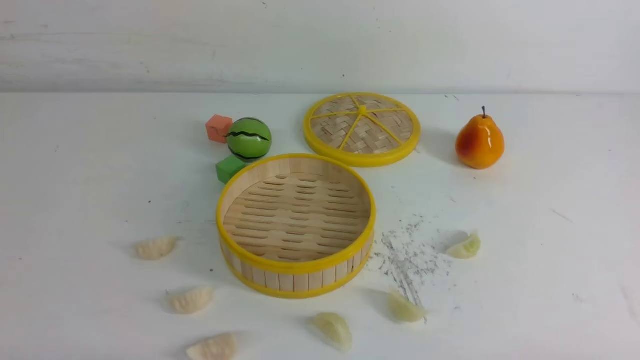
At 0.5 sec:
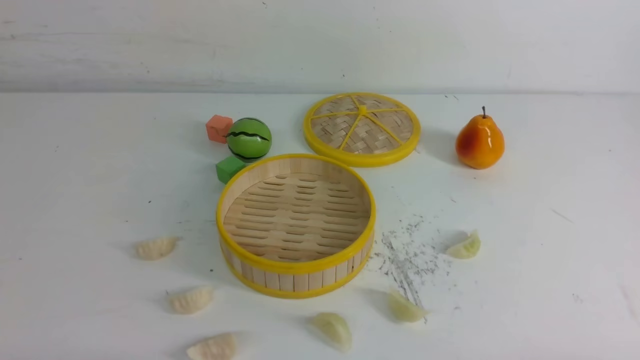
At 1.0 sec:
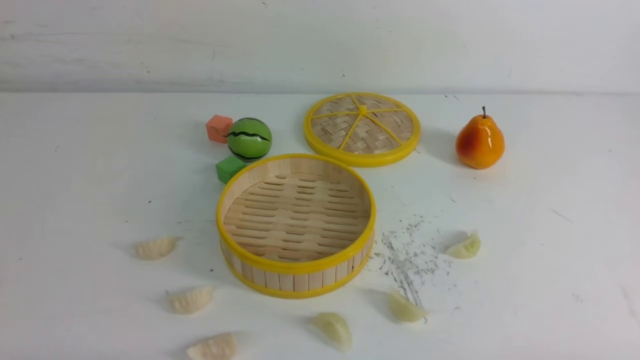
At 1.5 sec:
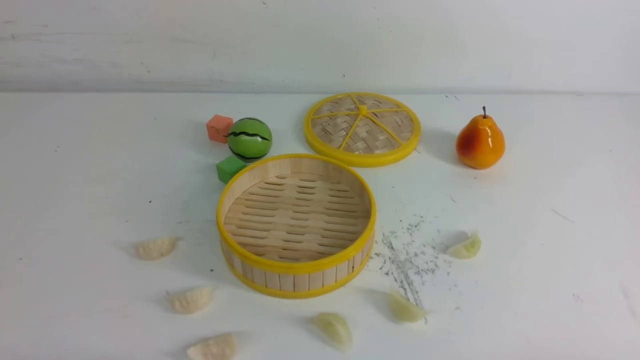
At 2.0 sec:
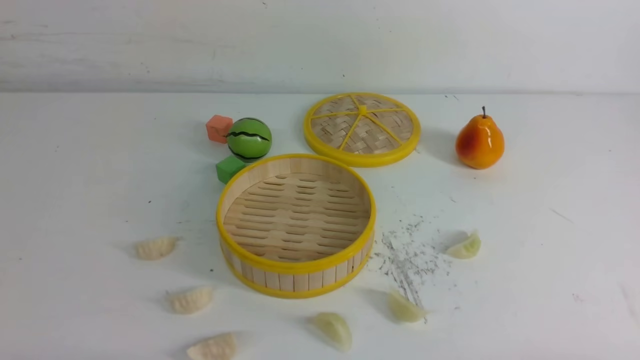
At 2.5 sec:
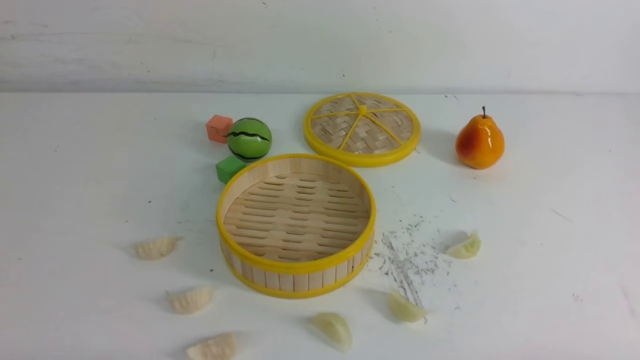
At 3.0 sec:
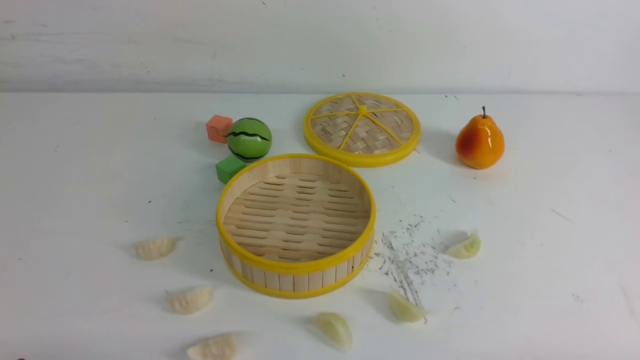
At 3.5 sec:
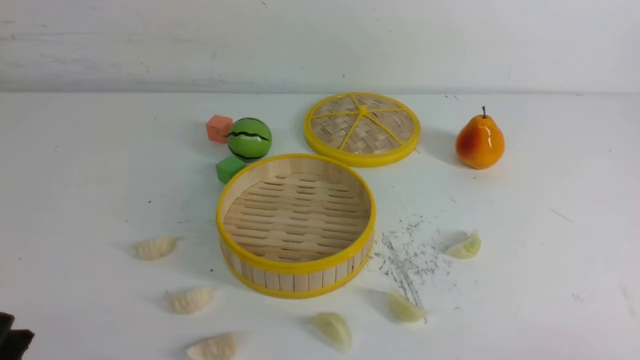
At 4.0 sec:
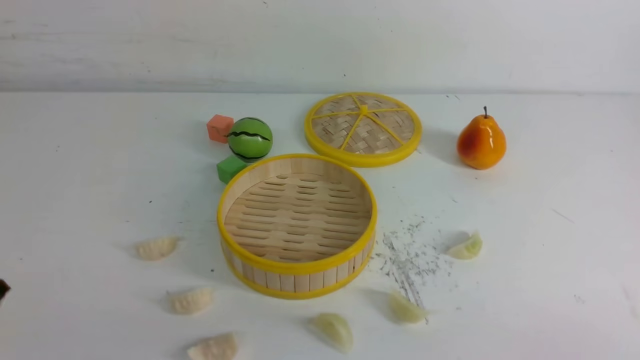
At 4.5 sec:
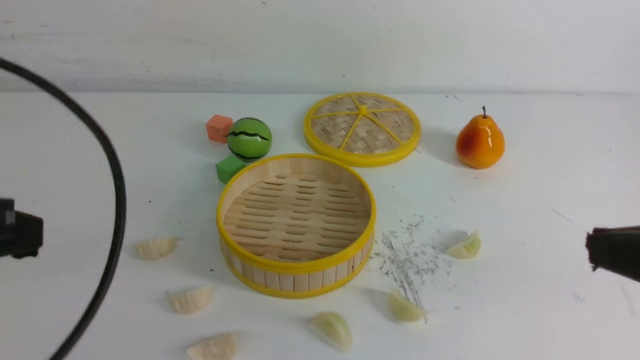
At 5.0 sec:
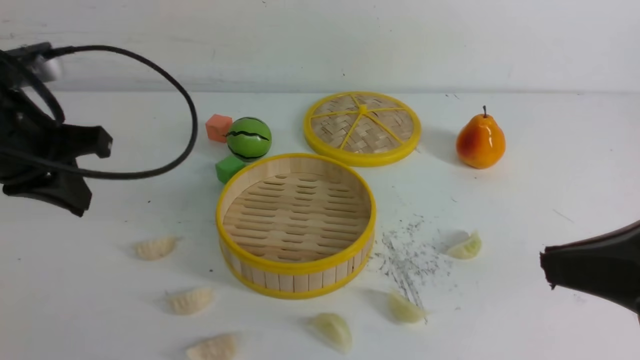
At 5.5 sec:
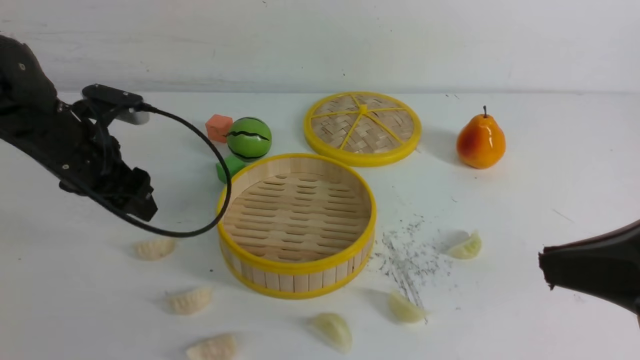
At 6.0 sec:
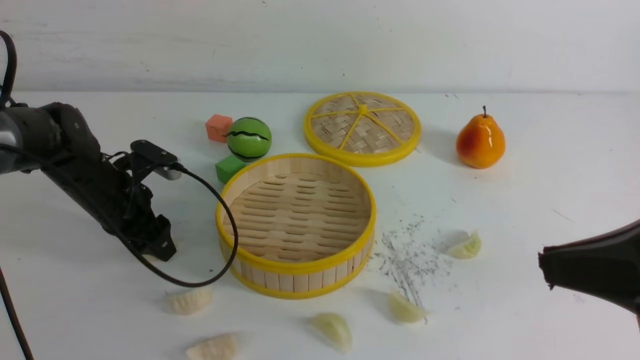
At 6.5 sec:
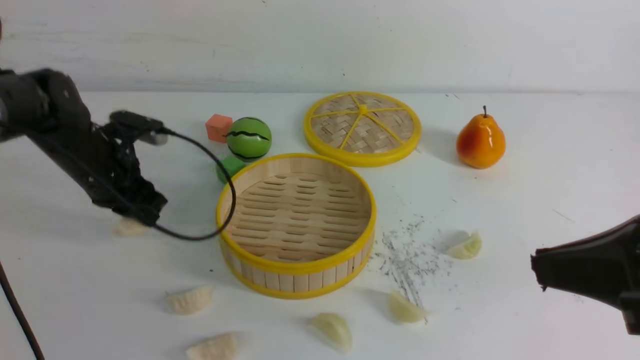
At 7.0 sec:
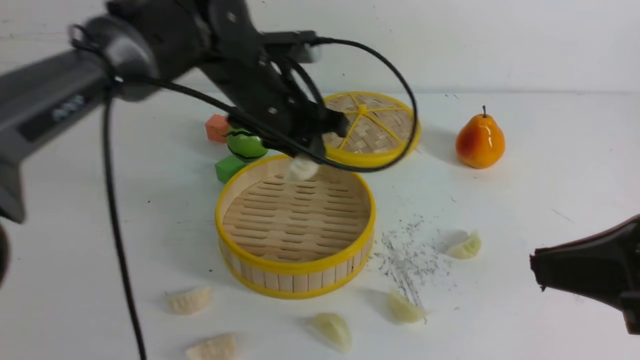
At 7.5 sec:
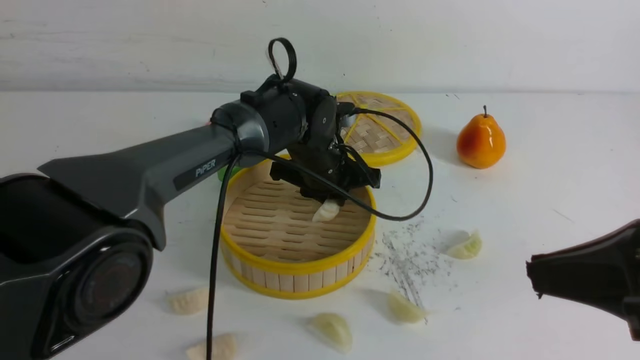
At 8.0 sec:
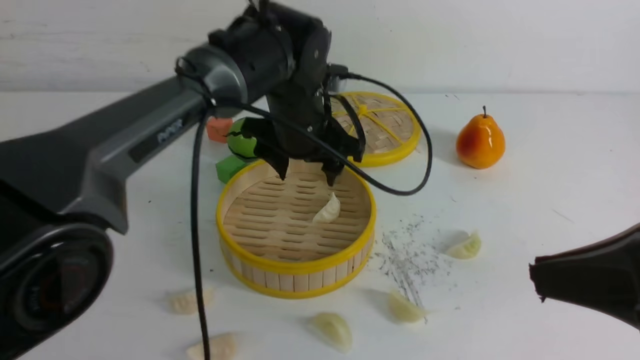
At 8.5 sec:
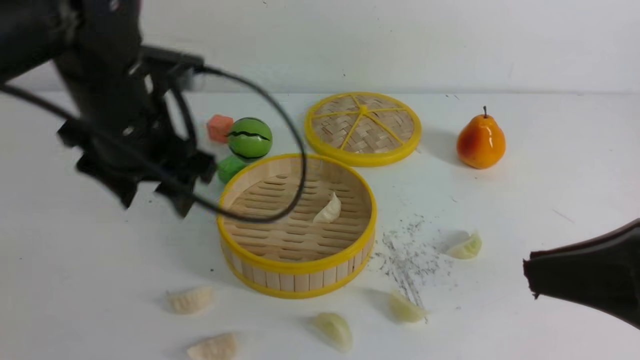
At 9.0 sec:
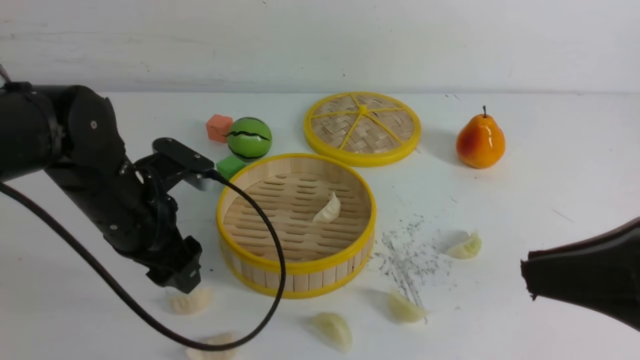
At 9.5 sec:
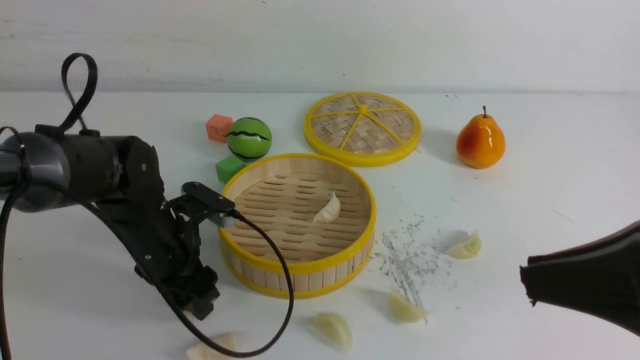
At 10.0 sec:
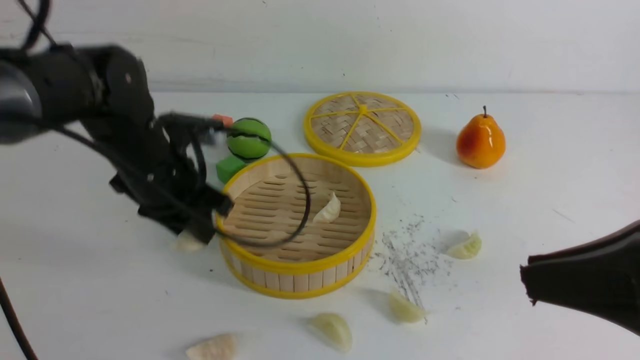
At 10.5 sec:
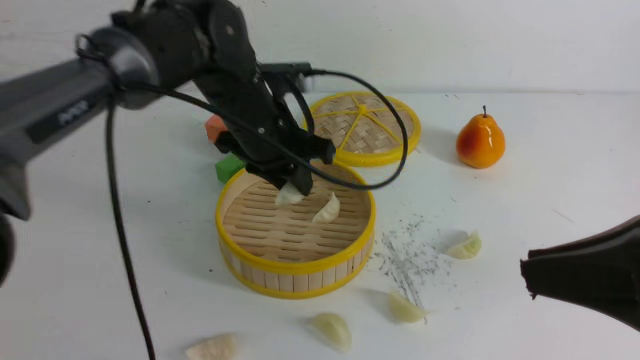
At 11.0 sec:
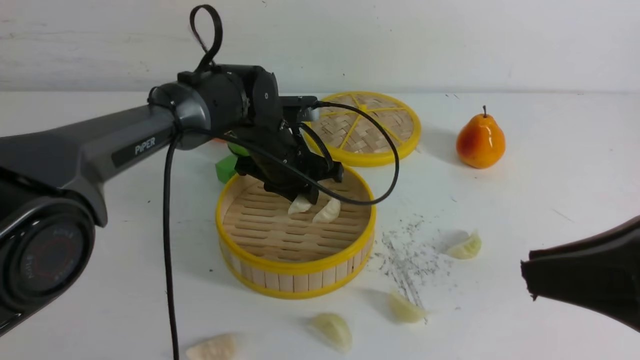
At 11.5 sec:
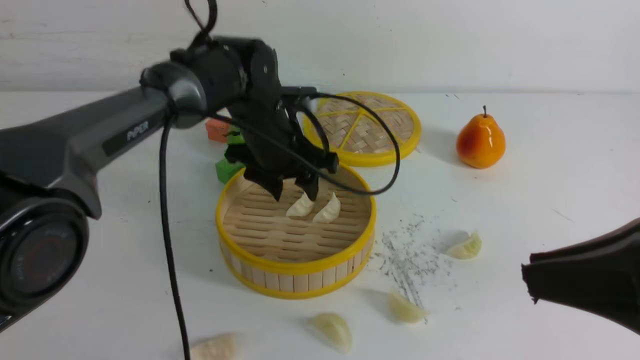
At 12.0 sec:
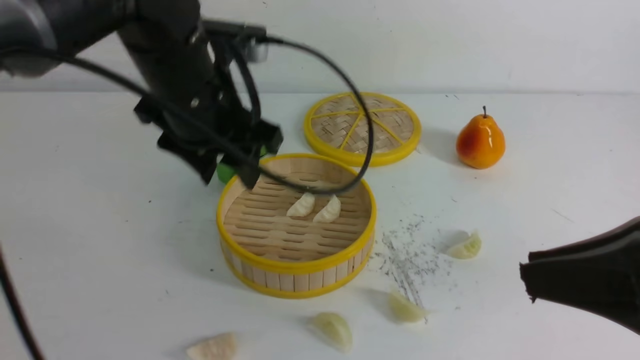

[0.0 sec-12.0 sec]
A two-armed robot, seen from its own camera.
Task of the whole recording: put the dumplings into the steamer on the white table.
Step, 0.0 sec to 6.0 sec: use the left arm to grab a dumpling.
Step, 6.5 sec to 7.5 sec: use the left arm to put the dumpling into the steamer.
Step, 8.0 sec to 9.5 sec: use the left arm to grab a dumpling.
Step, 10.0 sec to 11.0 sec: use the left arm to put the dumpling into the steamer.
0.0 sec to 2.0 sec: Both grippers stay about where they are.
4.0 sec to 6.0 sec: The left gripper heads forward, covering approximately 35 cm, and opens up; the right gripper travels upward, forward and to the left by about 15 cm.
6.0 sec to 8.0 sec: The left gripper is displaced to the right and upward by about 25 cm, and closes, then reopens.
8.0 sec to 10.0 sec: The left gripper shifts approximately 15 cm to the left, and closes.
10.0 sec to 12.0 sec: The left gripper travels upward by about 5 cm, and opens.

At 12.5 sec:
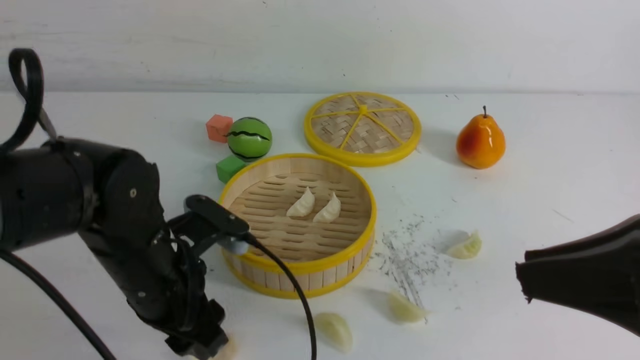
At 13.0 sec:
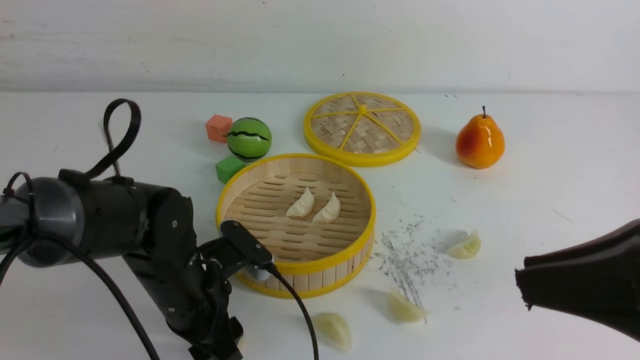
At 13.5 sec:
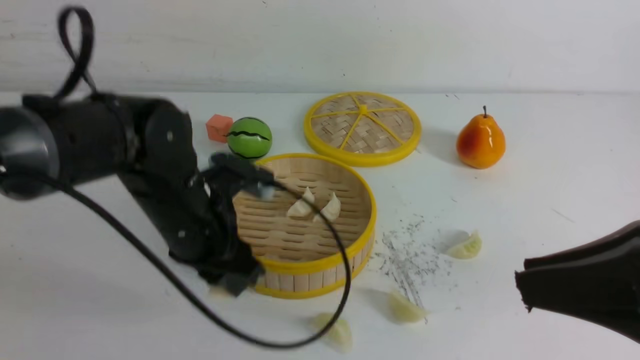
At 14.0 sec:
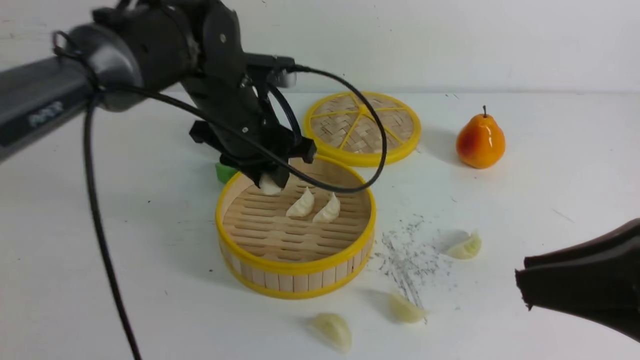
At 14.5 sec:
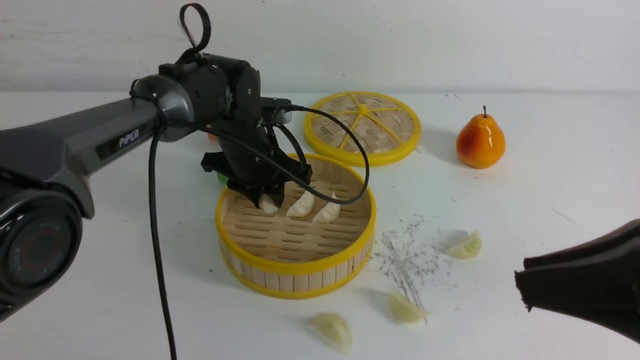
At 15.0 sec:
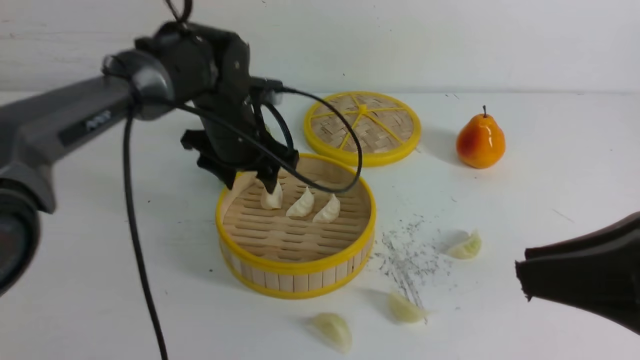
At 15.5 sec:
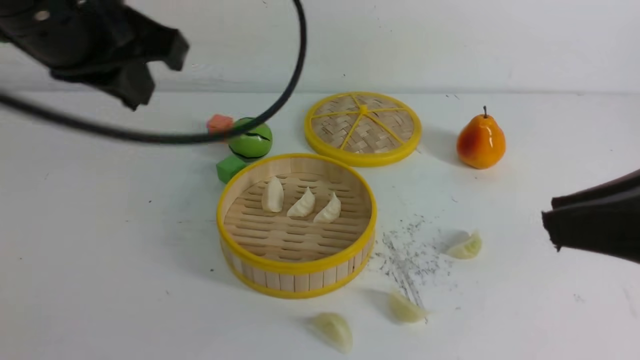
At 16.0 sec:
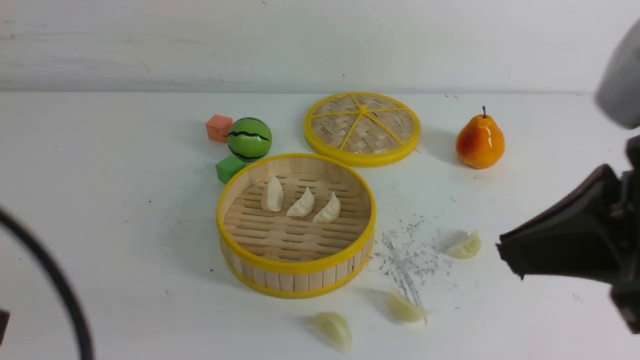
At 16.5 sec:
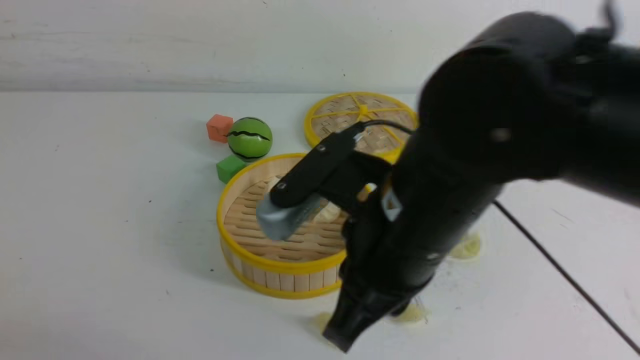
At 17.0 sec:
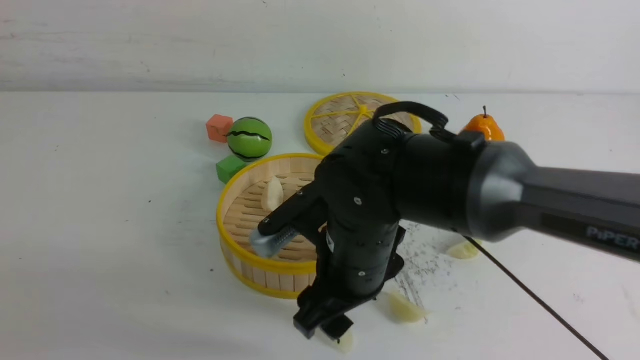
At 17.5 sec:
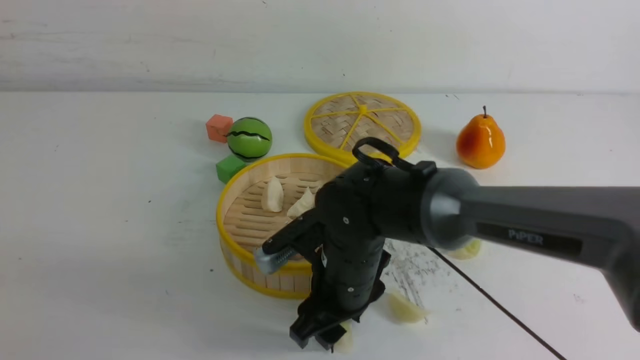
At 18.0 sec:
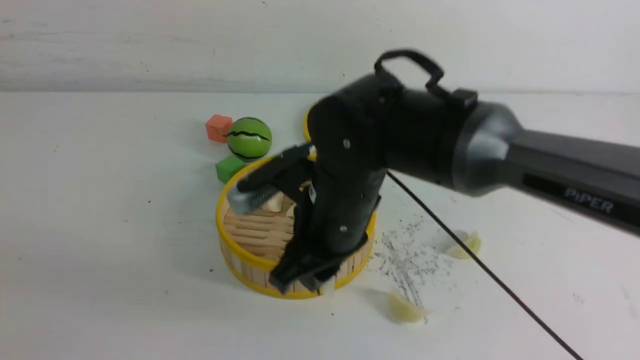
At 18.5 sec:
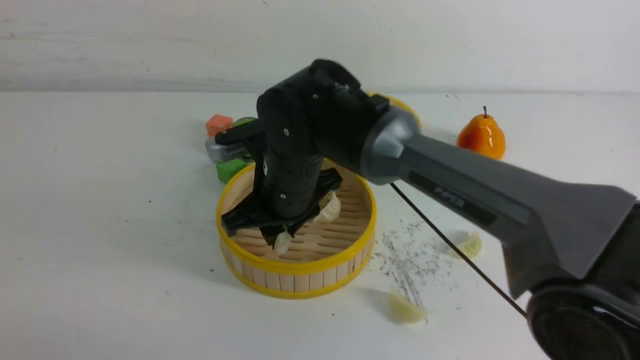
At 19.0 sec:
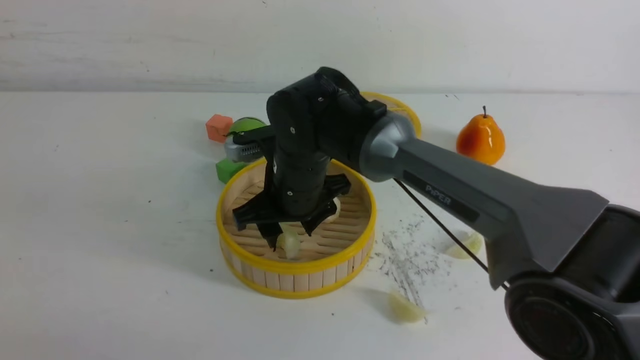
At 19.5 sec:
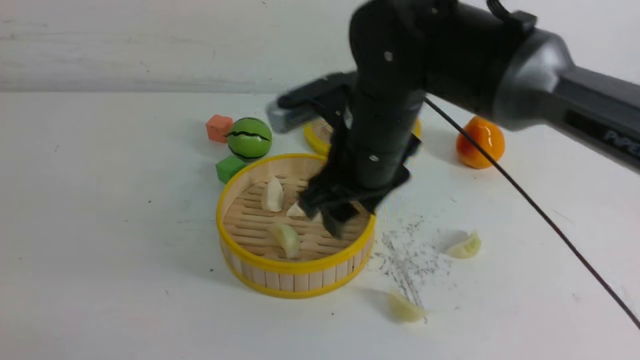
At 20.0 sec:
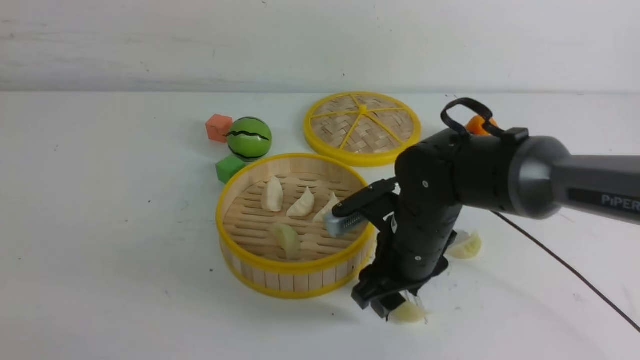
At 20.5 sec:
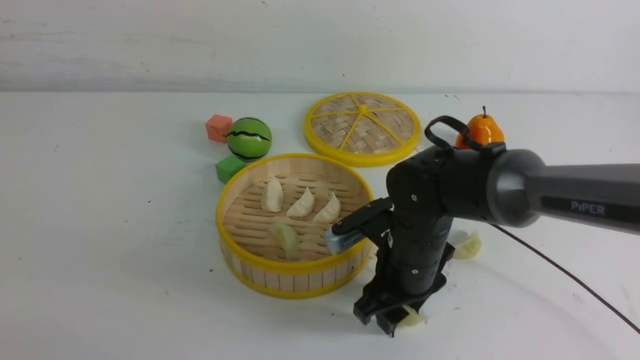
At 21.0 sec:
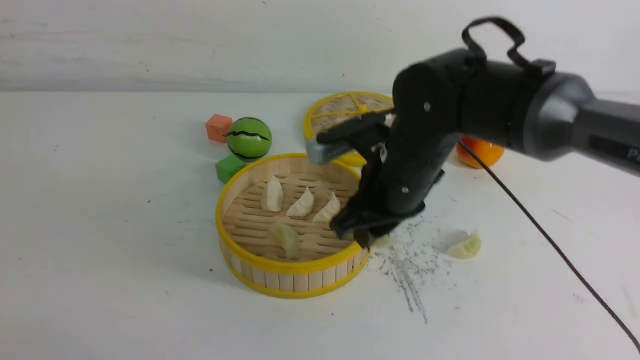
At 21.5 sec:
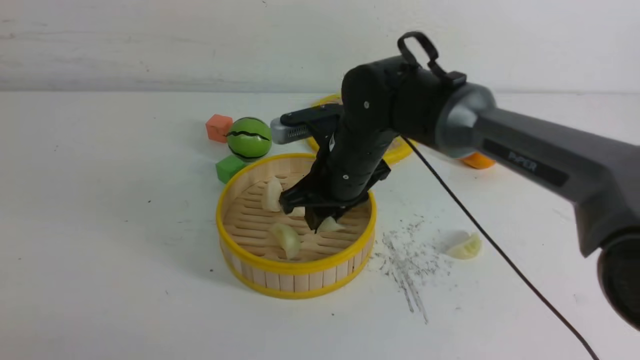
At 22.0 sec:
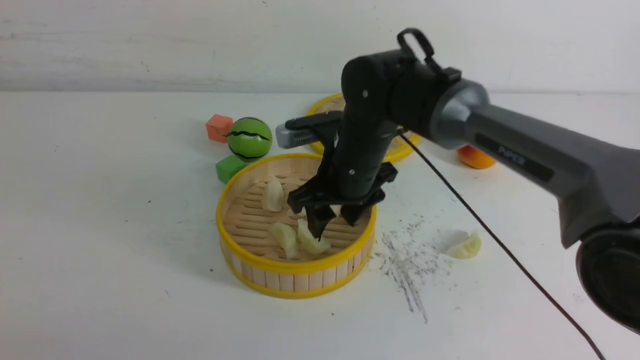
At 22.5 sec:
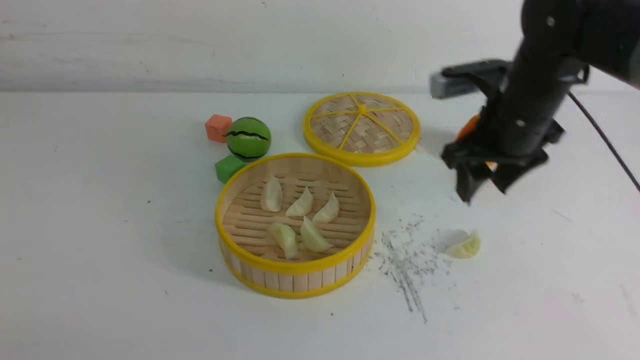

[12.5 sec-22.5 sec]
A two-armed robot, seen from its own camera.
Task of the whole recording: put the dumplings into the steamer on the white table.
Step, 13.5 sec to 14.5 sec: use the left arm to put the dumpling into the steamer.
Step, 15.0 sec to 17.5 sec: use the right arm to grab a dumpling.
Step, 18.0 sec to 18.5 sec: use the right arm to put the dumpling into the steamer.
Step, 19.0 sec to 20.5 sec: use the right arm to grab a dumpling.
Step, 21.0 sec to 21.5 sec: use the right arm to put the dumpling into the steamer.
12.5 sec to 14.5 sec: The left gripper shifts about 20 cm forward.
14.5 sec to 16.5 sec: The left gripper moves backward, approximately 40 cm, and closes its fingers, while the right gripper is displaced to the left and forward by about 20 cm.
16.5 sec to 18.5 sec: The right gripper shifts approximately 20 cm forward, to the left and downward, and opens and closes again.
18.5 sec to 20.5 sec: The right gripper travels to the right and downward by about 15 cm.
20.5 sec to 22.5 sec: The right gripper goes some 15 cm upward, to the right and forward.
